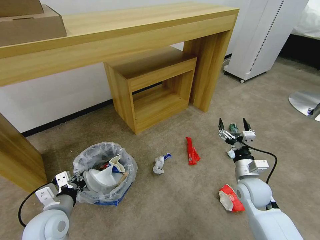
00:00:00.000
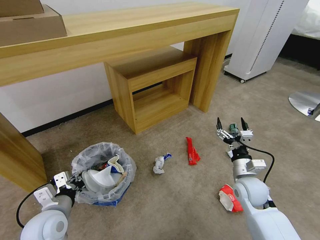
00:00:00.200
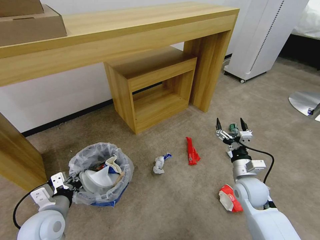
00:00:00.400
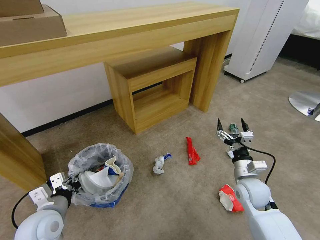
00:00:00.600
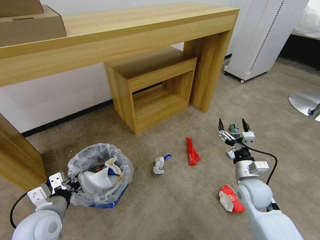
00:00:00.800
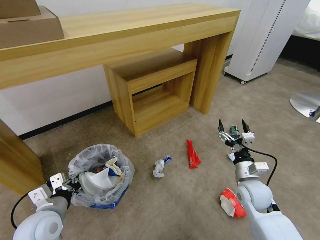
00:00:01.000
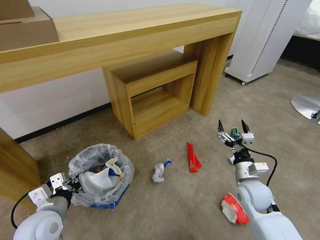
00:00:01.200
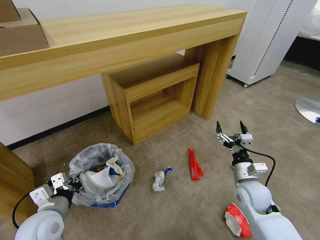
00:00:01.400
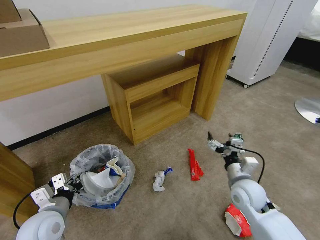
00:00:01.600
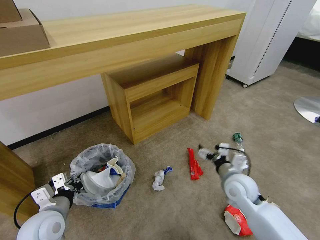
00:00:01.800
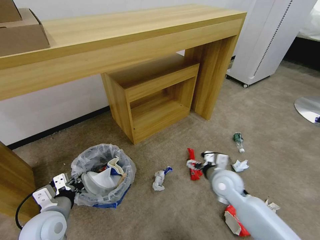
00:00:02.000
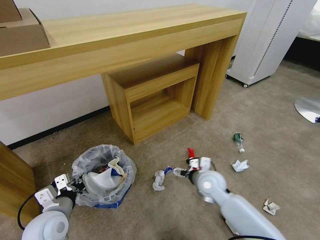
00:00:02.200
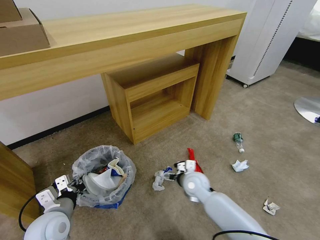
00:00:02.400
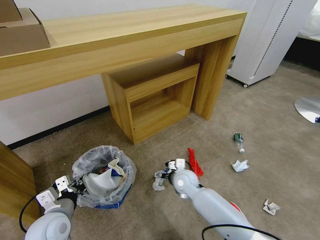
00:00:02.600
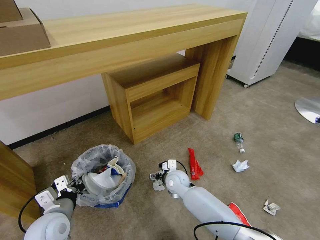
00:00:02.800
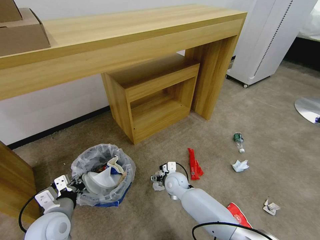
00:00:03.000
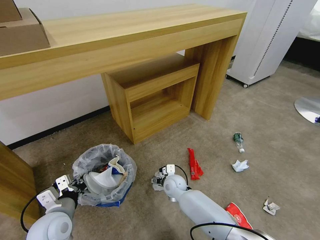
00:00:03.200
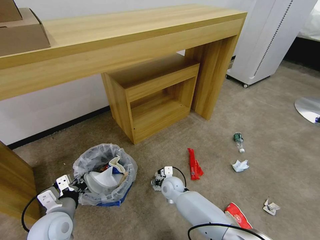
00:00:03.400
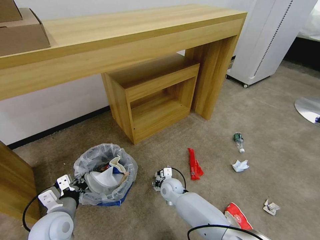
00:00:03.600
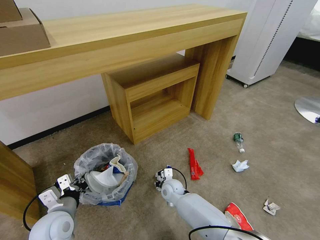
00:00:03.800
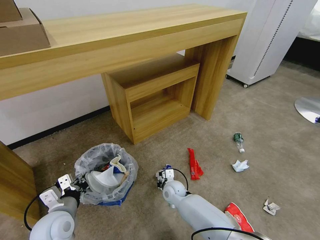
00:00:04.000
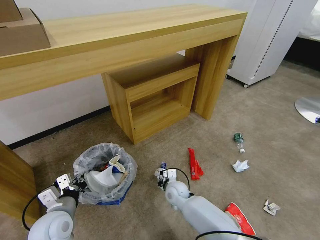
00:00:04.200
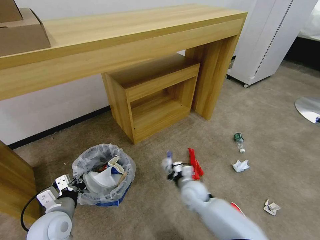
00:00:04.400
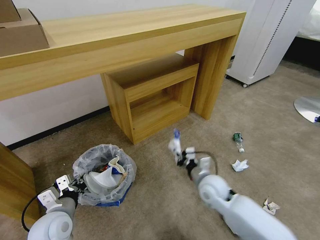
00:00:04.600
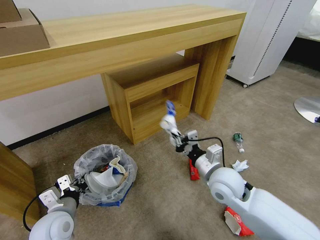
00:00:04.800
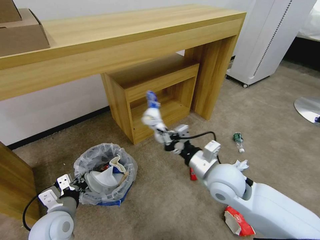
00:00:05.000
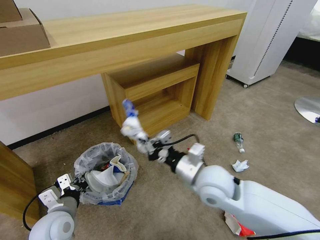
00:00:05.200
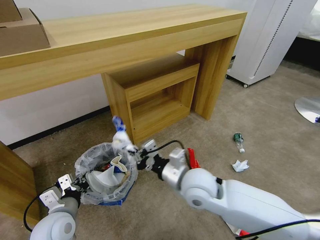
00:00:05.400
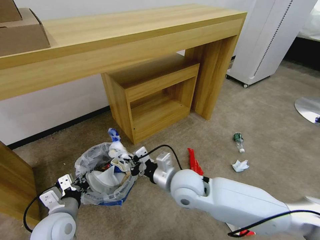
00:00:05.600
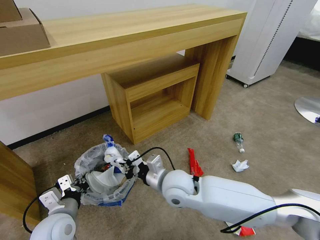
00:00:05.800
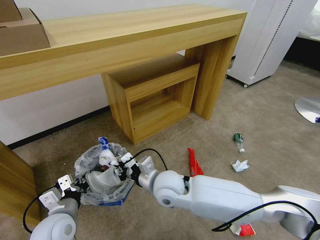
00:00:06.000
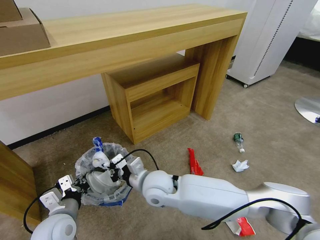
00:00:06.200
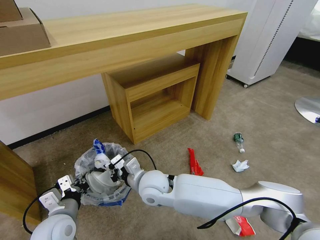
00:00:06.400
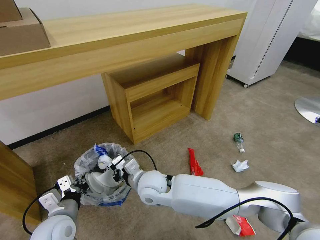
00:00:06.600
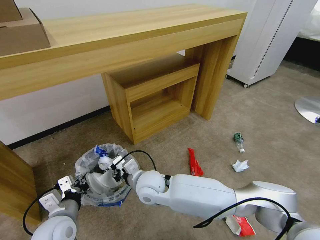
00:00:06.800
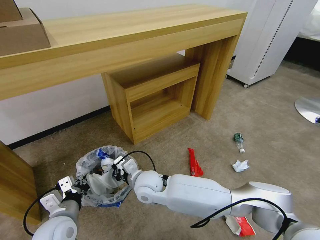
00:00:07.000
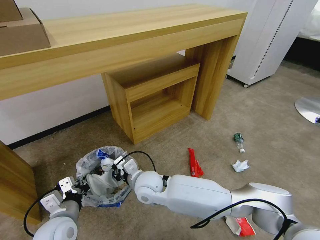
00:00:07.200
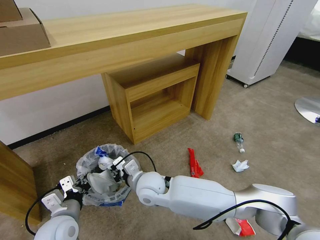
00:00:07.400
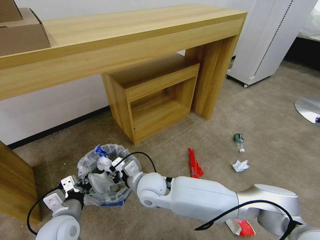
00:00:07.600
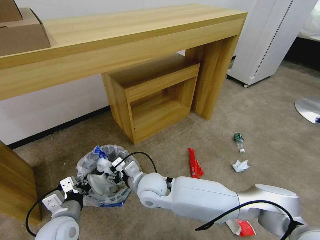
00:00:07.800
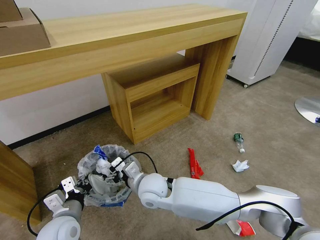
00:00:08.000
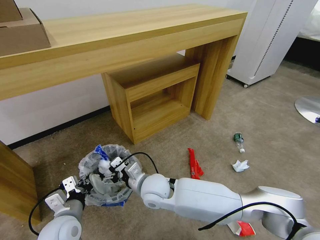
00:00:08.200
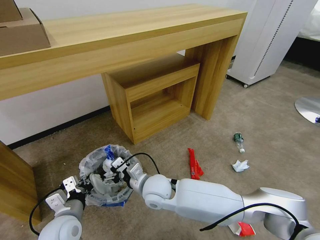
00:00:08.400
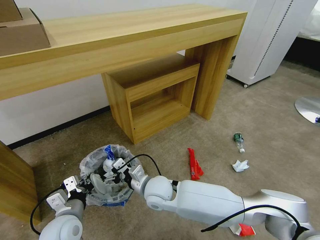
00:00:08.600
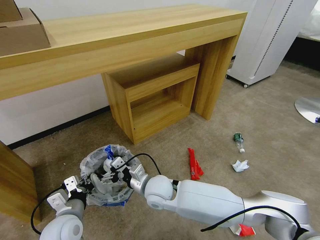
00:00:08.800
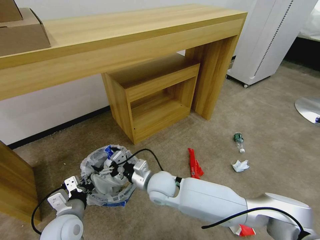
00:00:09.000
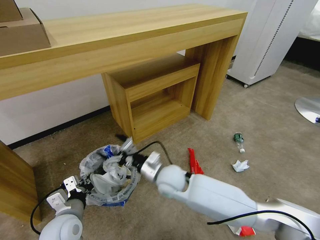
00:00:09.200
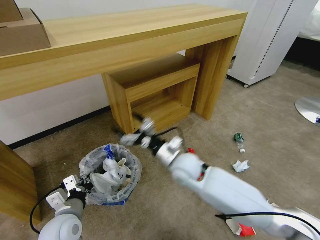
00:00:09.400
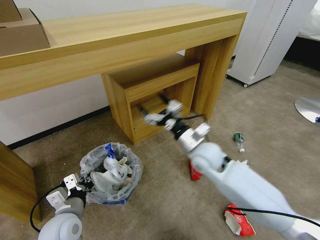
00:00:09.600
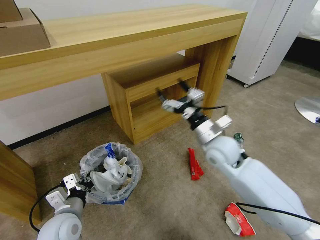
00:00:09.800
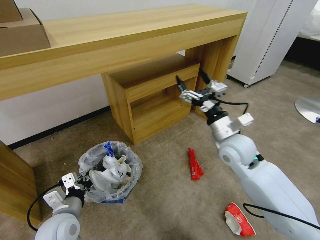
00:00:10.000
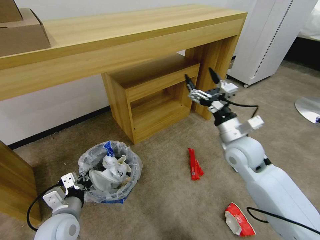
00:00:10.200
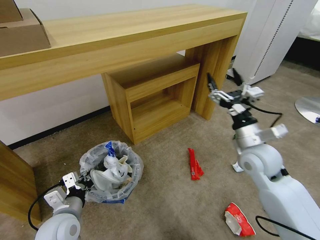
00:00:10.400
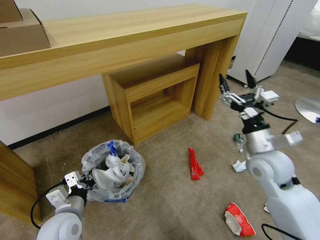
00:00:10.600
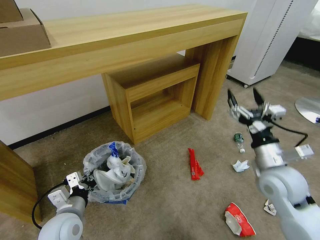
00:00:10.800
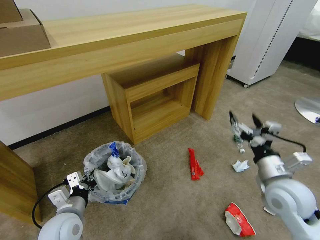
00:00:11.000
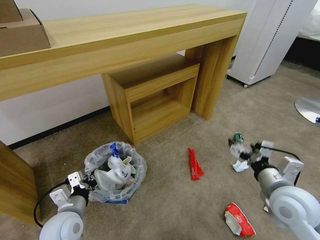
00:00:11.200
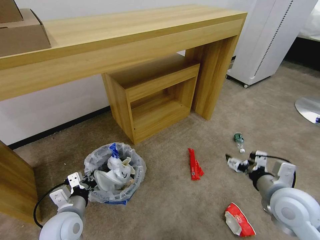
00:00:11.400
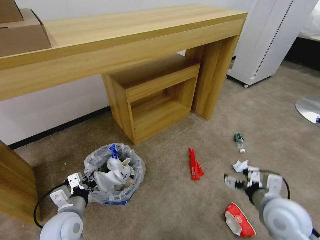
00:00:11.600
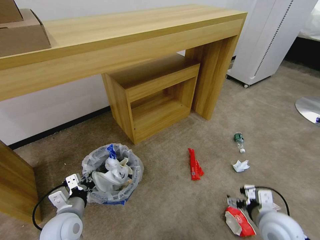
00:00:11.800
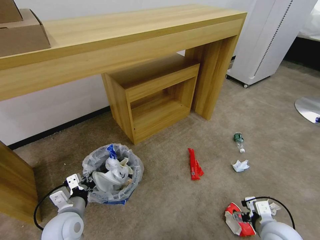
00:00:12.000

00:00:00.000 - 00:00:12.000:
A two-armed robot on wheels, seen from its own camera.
Task of the whole recording: Pick up the trash bin and place the garbage on the floor into it.
00:00:01.600 - 00:00:03.000: The right gripper travels to the left, downward and forward by roughly 25 cm.
00:00:03.000 - 00:00:04.400: The right gripper goes about 5 cm to the right, and closes its fingers.
00:00:04.400 - 00:00:06.000: The right gripper goes about 20 cm upward and to the left.
00:00:06.000 - 00:00:07.600: The right gripper shifts by some 5 cm, and opens up.
00:00:07.600 - 00:00:09.000: The right gripper opens.
00:00:09.000 - 00:00:10.400: The right gripper moves to the right and upward, some 30 cm.
00:00:10.400 - 00:00:12.000: The right gripper travels backward and downward by roughly 25 cm.

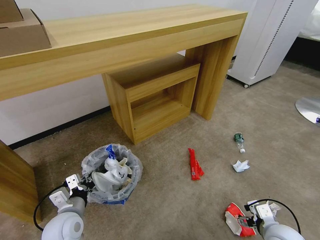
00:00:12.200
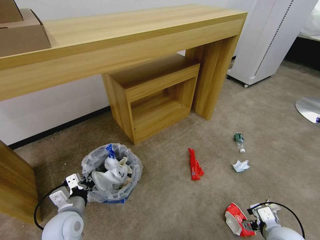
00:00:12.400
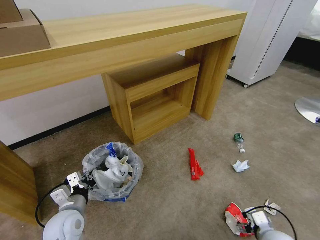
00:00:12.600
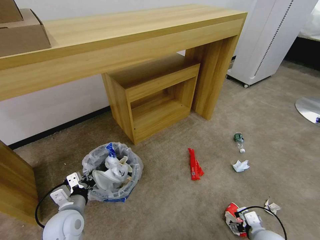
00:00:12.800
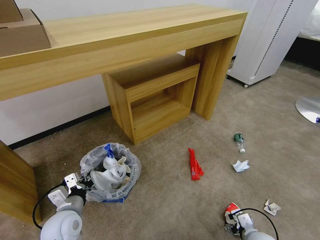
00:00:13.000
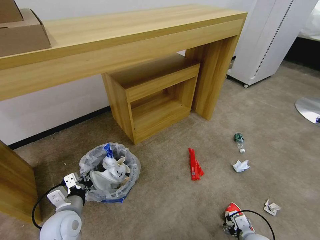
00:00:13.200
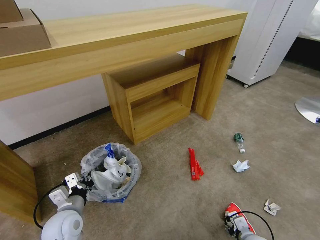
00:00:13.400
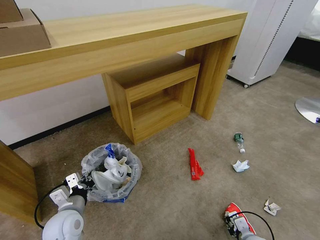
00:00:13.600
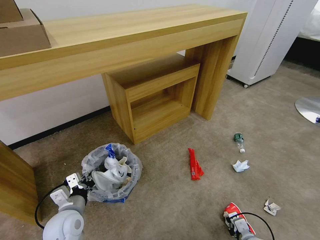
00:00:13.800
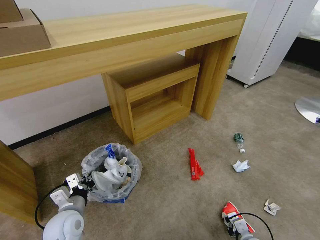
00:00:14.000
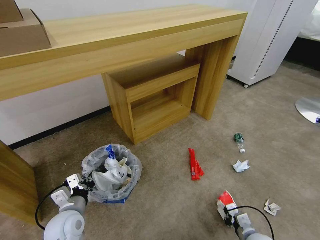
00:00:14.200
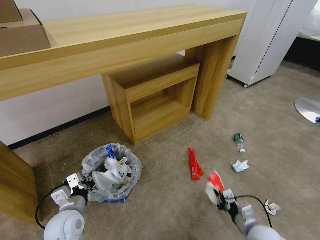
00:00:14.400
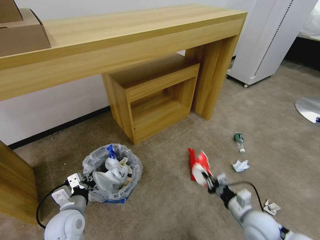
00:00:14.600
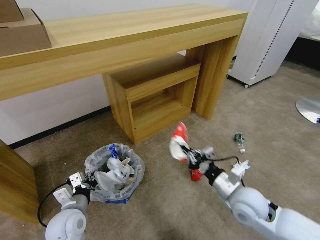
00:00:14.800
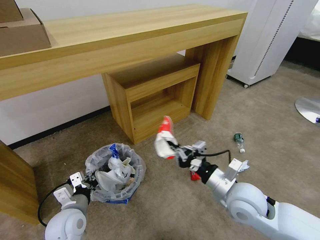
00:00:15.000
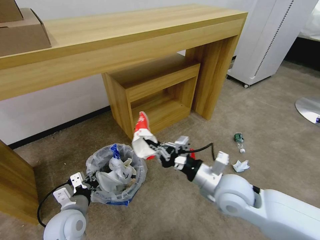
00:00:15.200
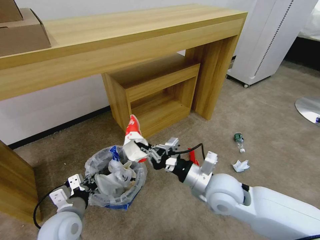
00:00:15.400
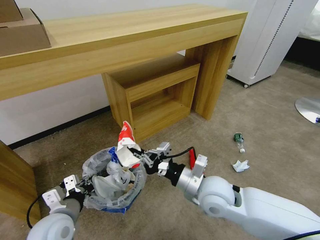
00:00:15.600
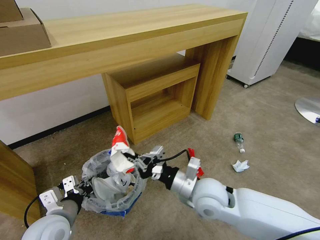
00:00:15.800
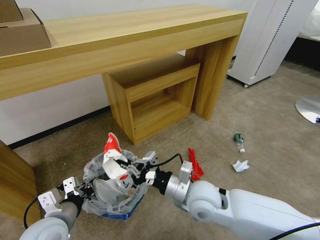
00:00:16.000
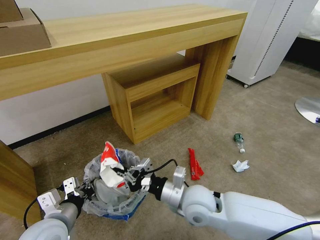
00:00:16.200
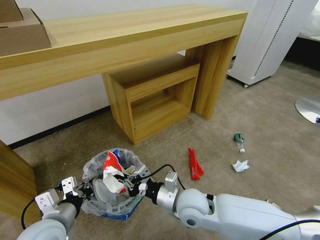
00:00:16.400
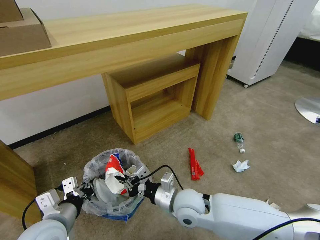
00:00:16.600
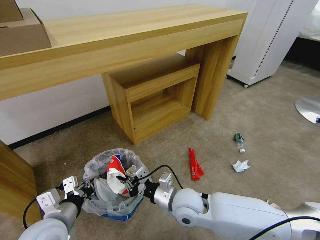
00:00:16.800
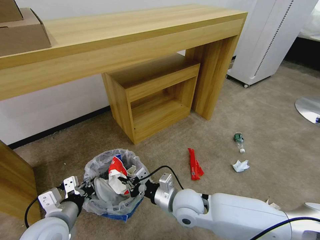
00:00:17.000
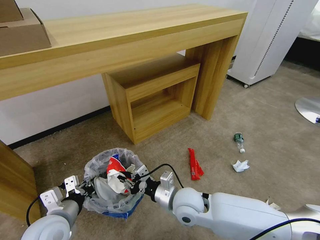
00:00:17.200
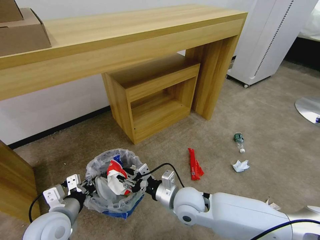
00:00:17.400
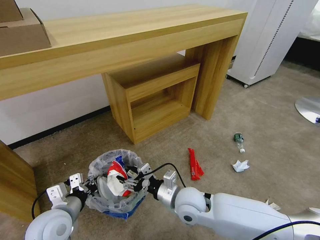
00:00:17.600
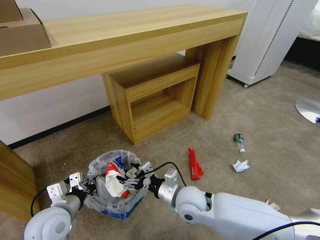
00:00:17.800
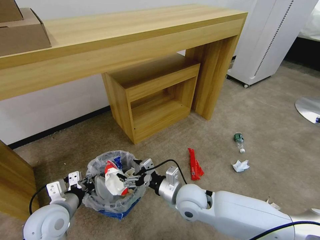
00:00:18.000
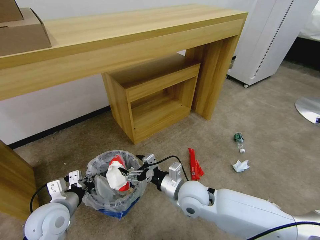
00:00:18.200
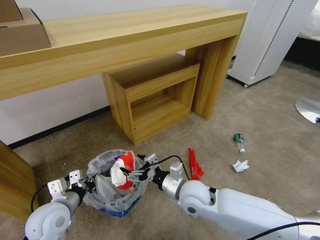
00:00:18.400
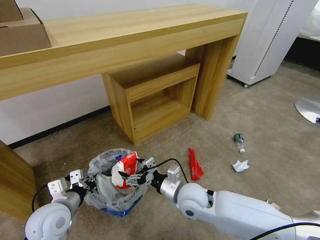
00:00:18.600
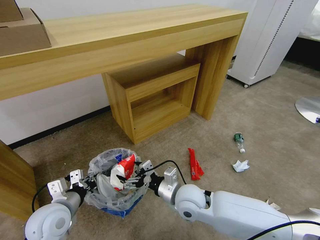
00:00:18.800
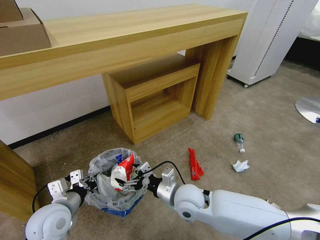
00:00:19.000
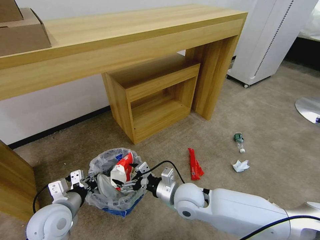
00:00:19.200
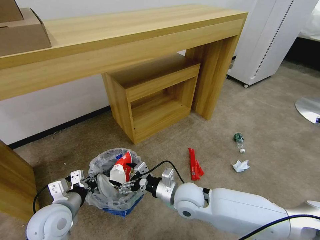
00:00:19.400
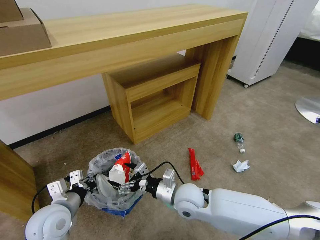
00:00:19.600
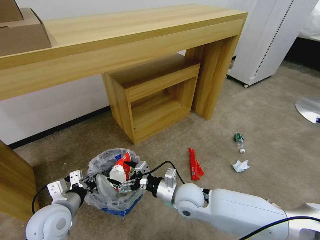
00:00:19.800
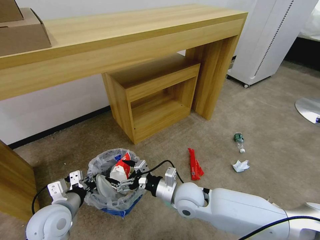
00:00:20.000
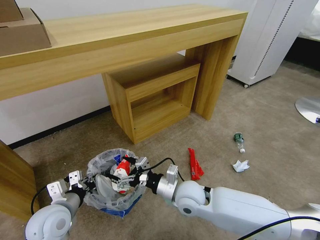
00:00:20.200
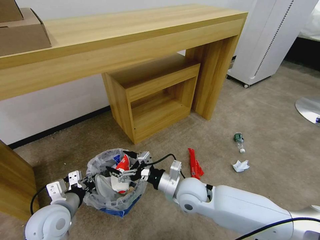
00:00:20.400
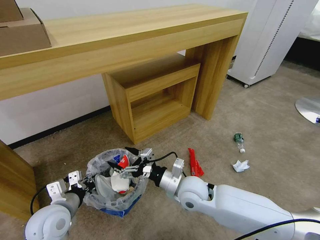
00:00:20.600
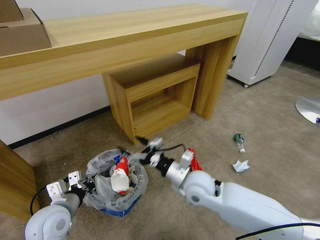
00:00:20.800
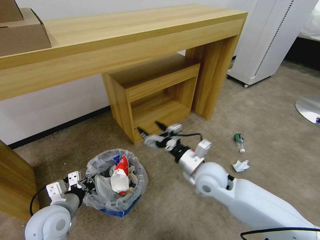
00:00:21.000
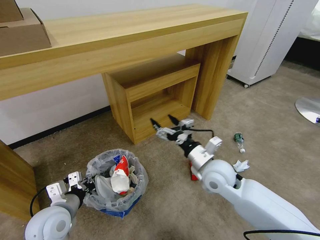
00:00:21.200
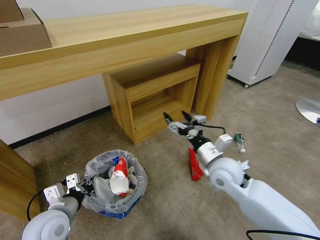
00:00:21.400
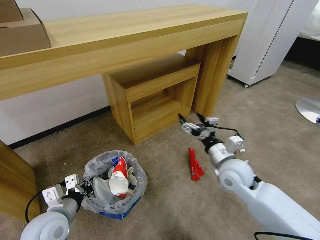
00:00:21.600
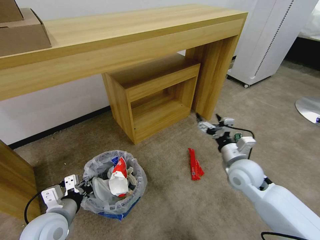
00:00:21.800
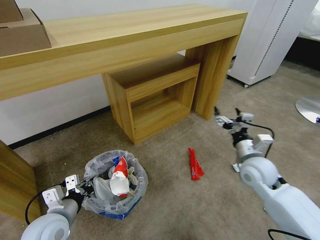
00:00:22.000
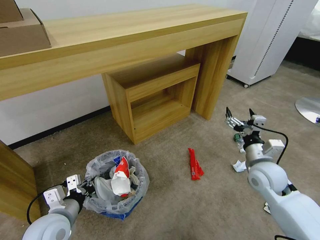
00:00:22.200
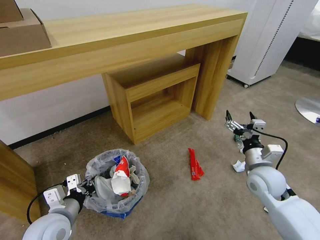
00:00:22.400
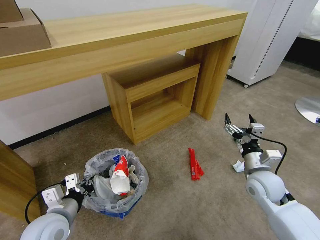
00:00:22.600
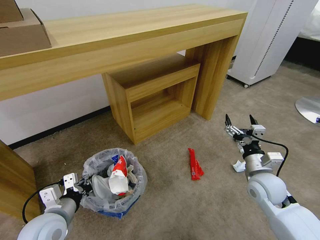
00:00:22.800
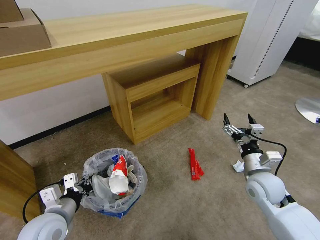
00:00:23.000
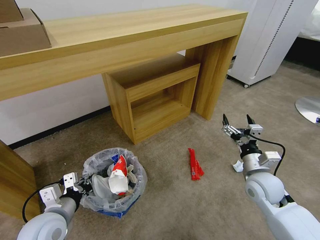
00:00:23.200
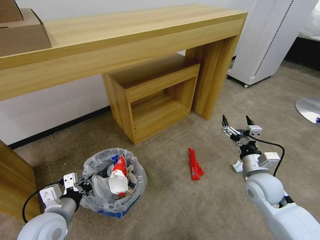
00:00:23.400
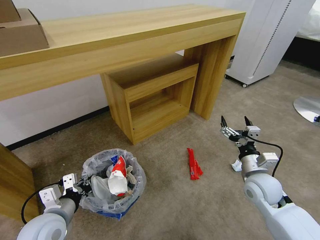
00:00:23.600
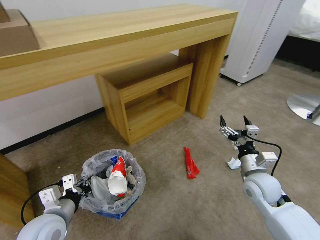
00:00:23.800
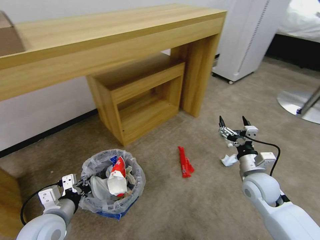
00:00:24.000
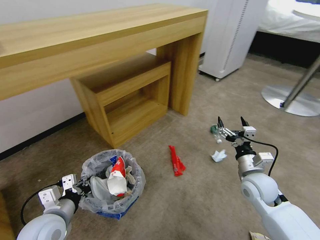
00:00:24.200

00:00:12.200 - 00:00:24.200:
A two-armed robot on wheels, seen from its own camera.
Task of the whole recording: Pick up the trash bin and place the garbage on the floor into it.
00:00:12.200 - 00:00:13.800: The right gripper is displaced downward by some 10 cm, and closes.
00:00:13.800 - 00:00:15.200: The right gripper goes about 30 cm upward and to the left.
00:00:15.200 - 00:00:16.600: The left gripper goes about 5 cm upward. The right gripper travels to the left and downward by approximately 15 cm.
00:00:16.600 - 00:00:18.200: The right gripper opens. Meanwhile the left gripper shifts some 5 cm forward.
00:00:18.200 - 00:00:19.800: The grippers move only a little.
00:00:19.800 - 00:00:21.200: The right gripper heads to the right and upward, covering about 10 cm.
00:00:21.200 - 00:00:22.600: The right gripper shifts about 15 cm to the right.
